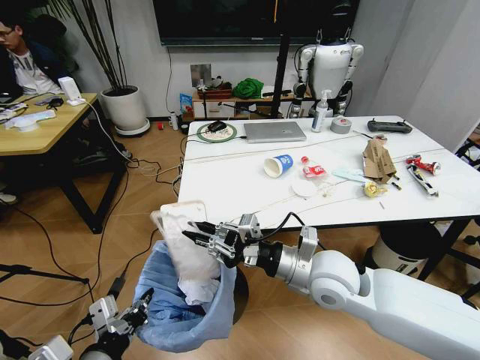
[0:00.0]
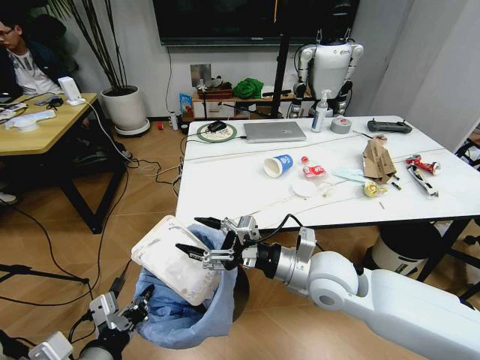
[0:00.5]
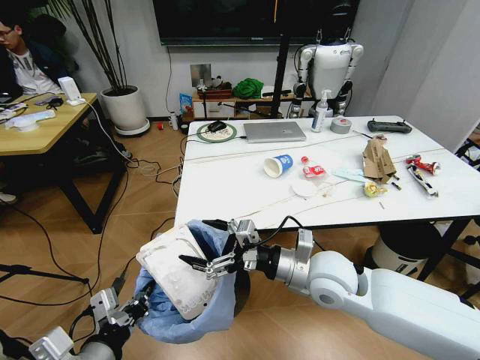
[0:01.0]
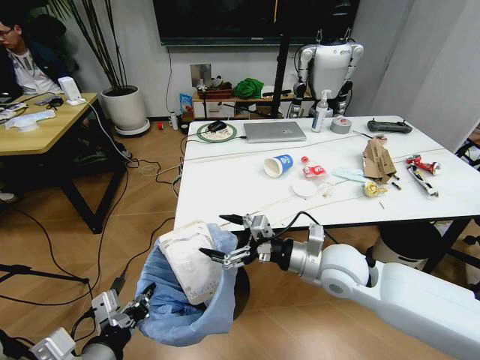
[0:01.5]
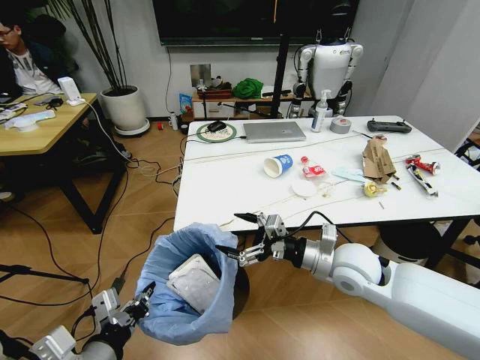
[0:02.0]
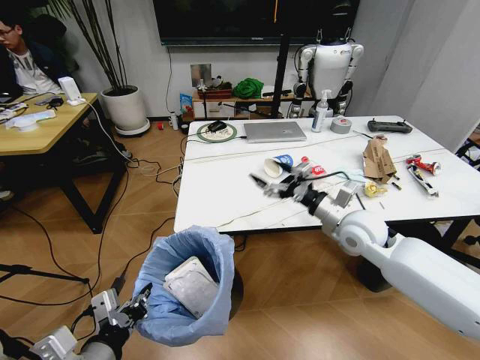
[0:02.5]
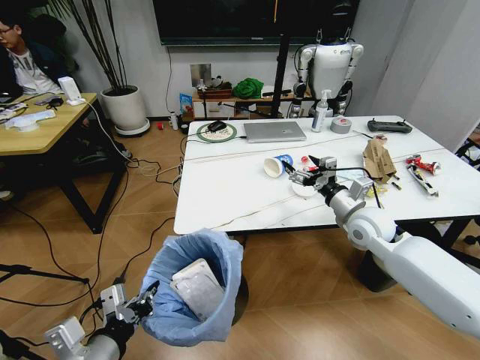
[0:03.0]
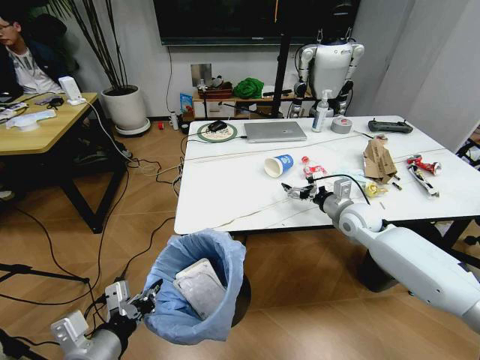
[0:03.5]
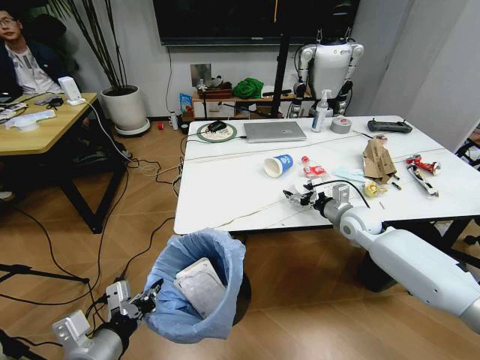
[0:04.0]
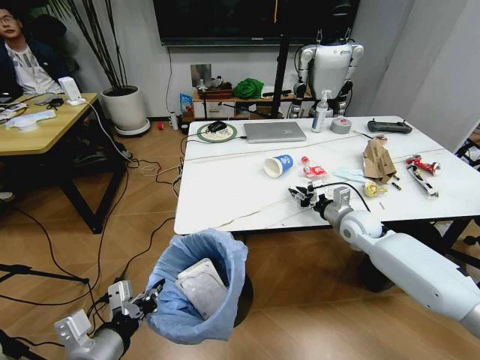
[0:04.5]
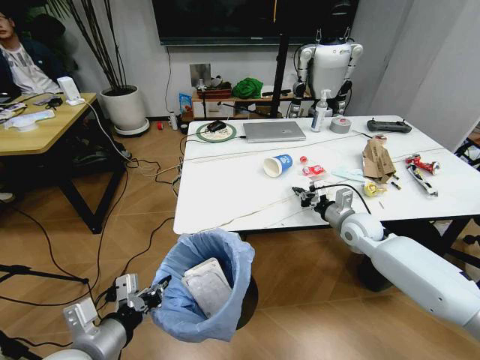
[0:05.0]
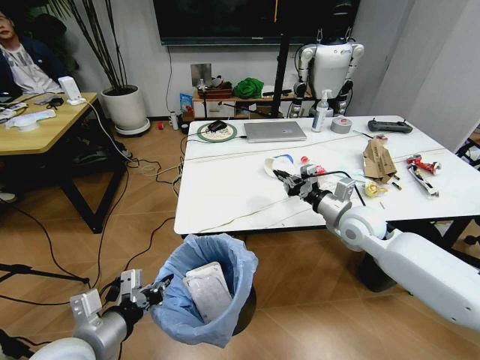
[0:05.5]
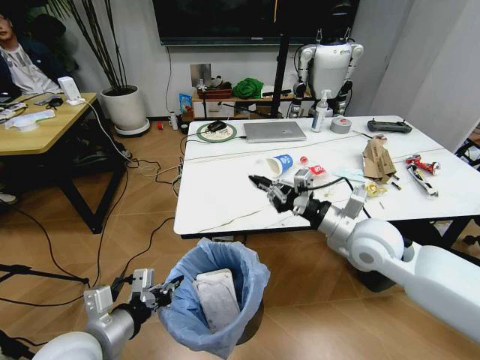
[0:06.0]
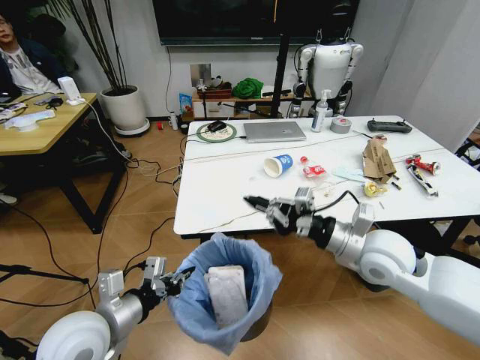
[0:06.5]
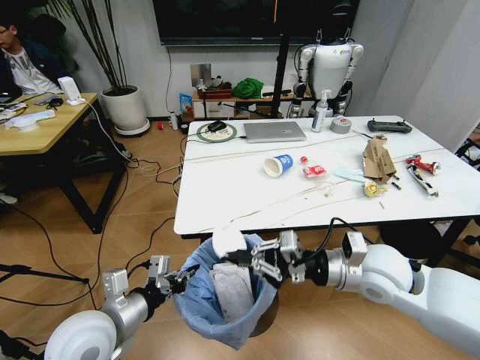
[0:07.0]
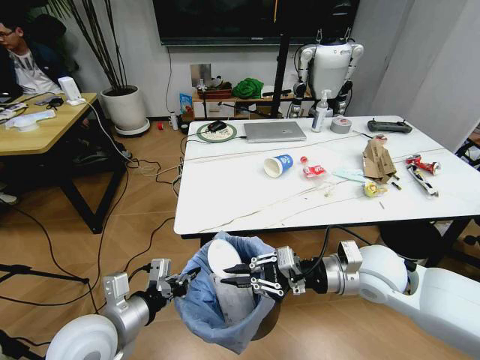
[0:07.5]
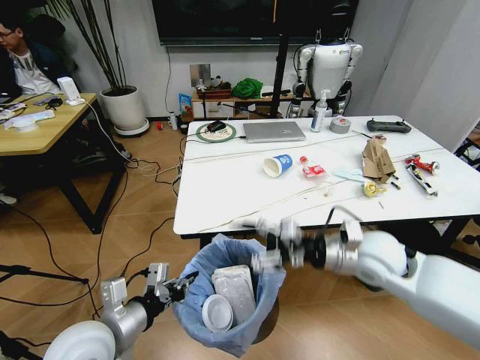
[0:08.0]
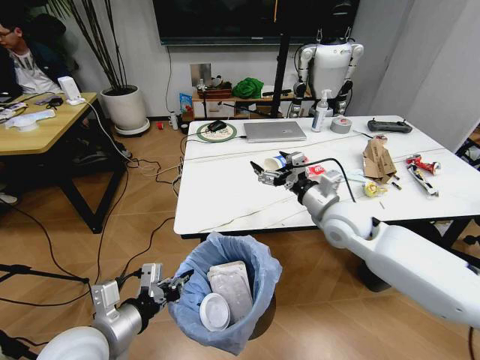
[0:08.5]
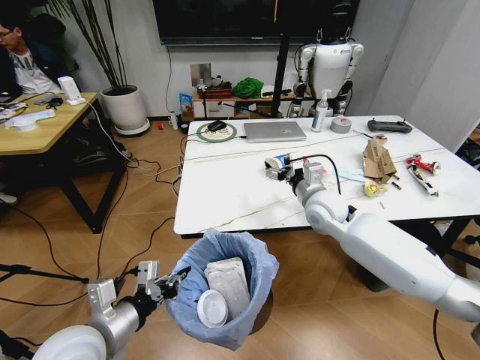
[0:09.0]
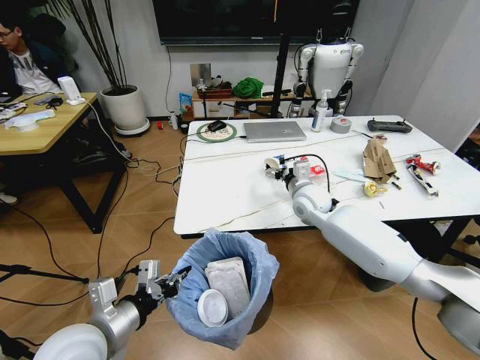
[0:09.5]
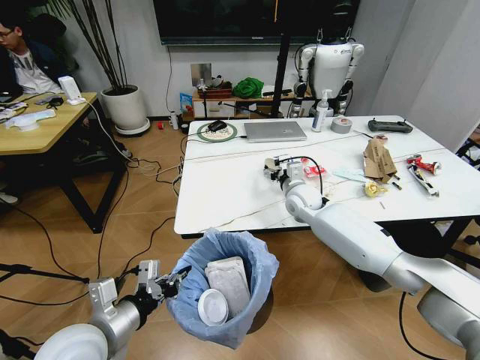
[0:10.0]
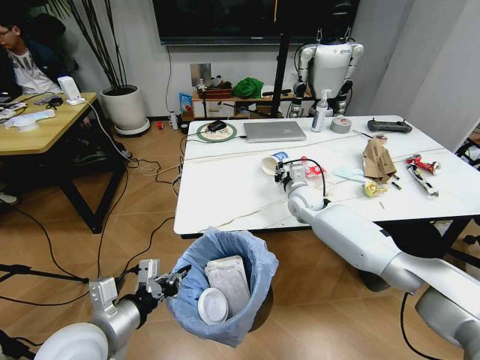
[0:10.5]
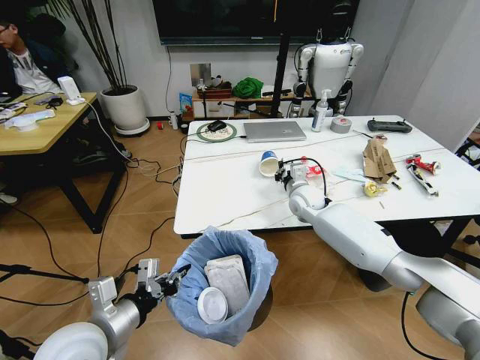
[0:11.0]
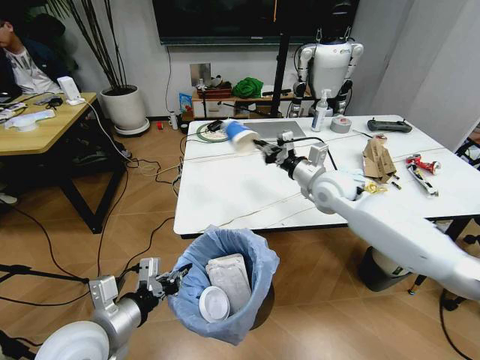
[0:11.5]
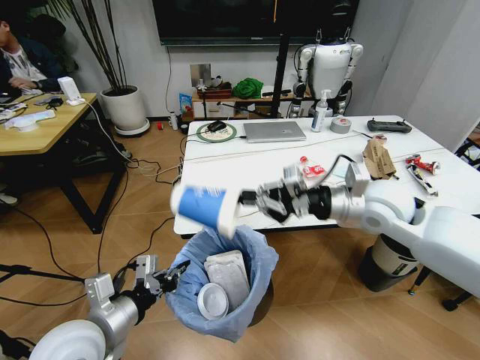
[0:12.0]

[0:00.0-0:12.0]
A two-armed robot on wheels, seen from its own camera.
Task of the whole recording: Pick up the trash bin and place the trash from the table into it.
0:00.0 to 0:02.0: The right gripper shifts roughly 5 cm to the right, and opens.
0:02.0 to 0:04.0: The right gripper goes approximately 15 cm forward and to the right.
0:04.0 to 0:06.0: The right gripper heads backward, upward and to the left, covering approximately 20 cm, and closes up.
0:06.0 to 0:08.0: The right gripper opens.
0:08.0 to 0:10.0: The right gripper shifts approximately 20 cm forward.
0:10.0 to 0:12.0: The right gripper moves backward, upward and to the right, about 25 cm, and closes.

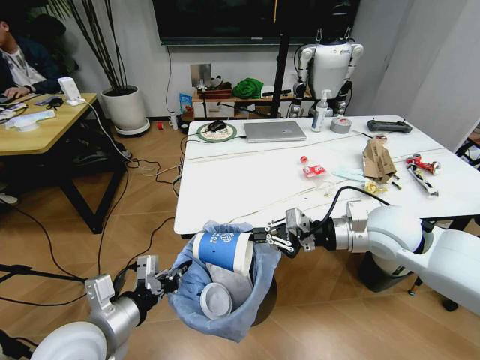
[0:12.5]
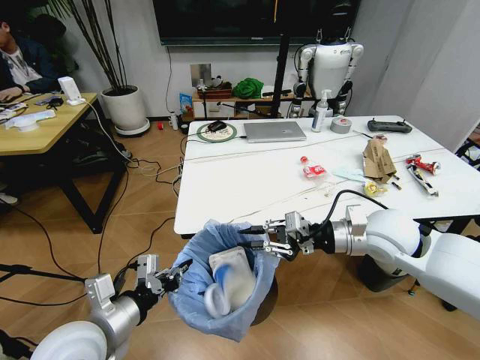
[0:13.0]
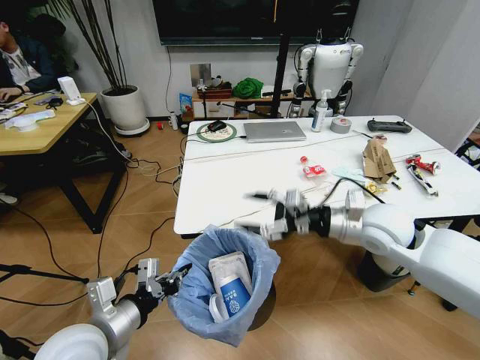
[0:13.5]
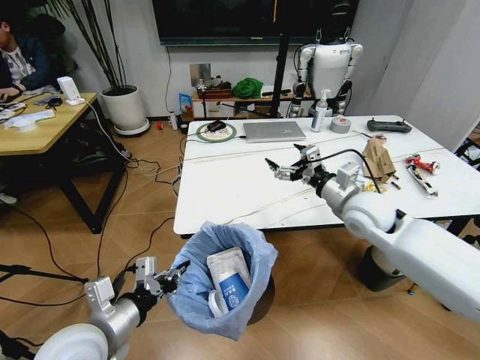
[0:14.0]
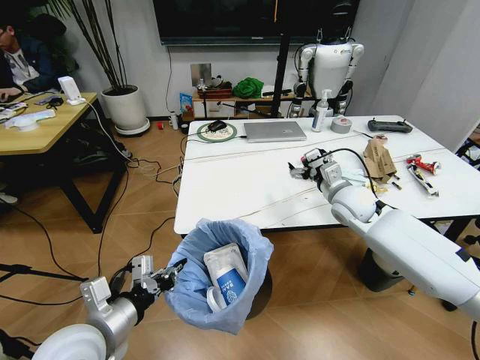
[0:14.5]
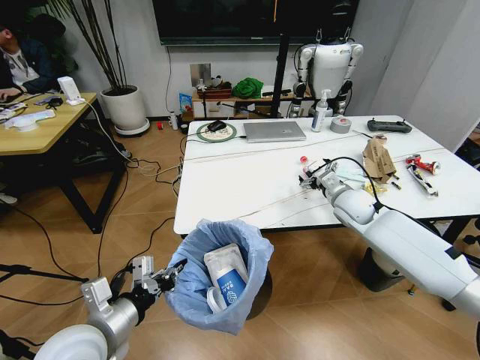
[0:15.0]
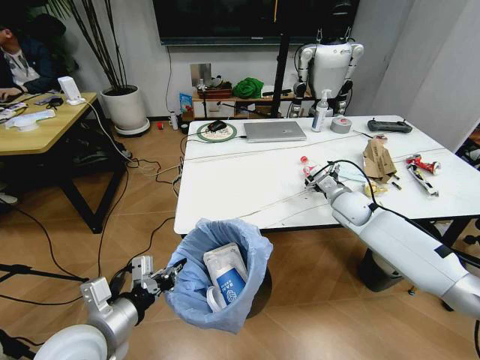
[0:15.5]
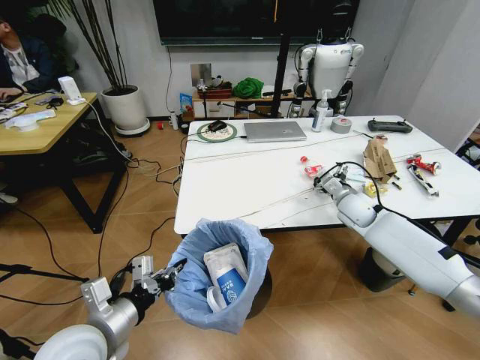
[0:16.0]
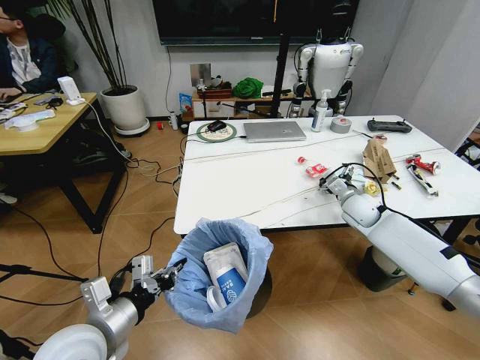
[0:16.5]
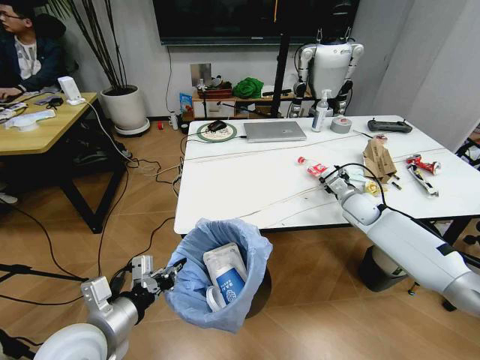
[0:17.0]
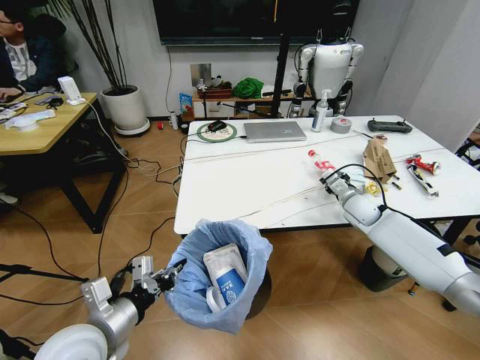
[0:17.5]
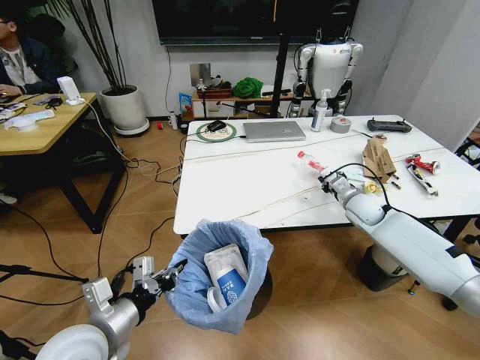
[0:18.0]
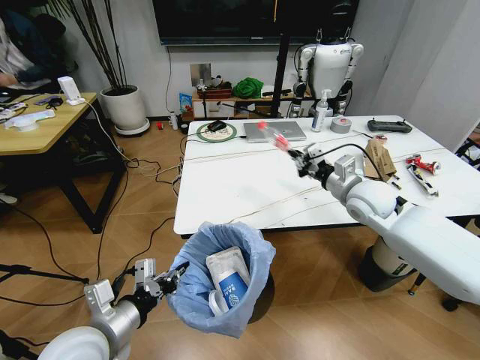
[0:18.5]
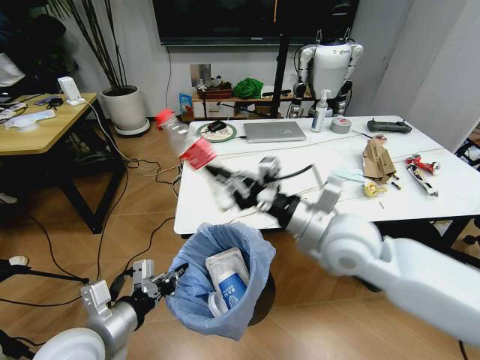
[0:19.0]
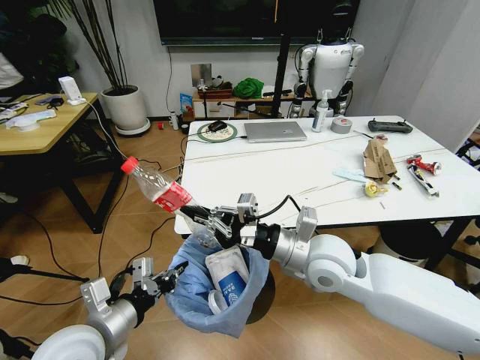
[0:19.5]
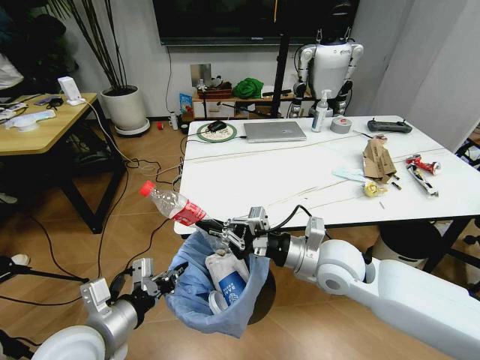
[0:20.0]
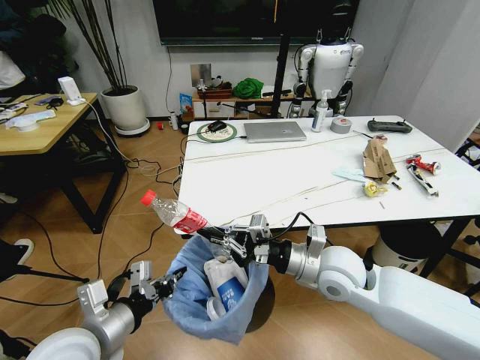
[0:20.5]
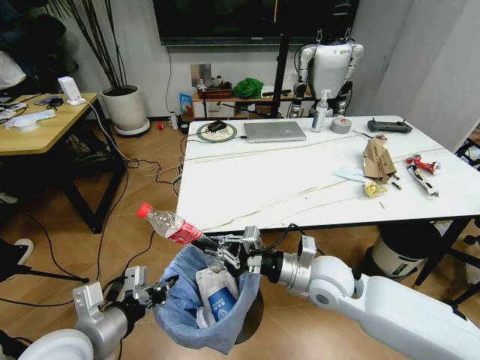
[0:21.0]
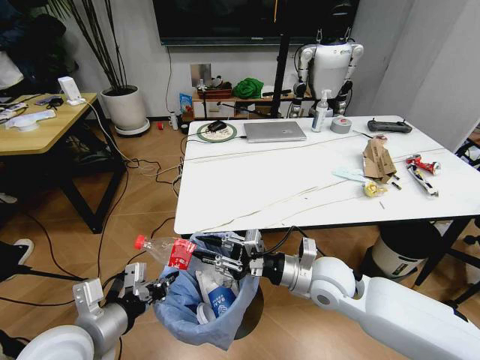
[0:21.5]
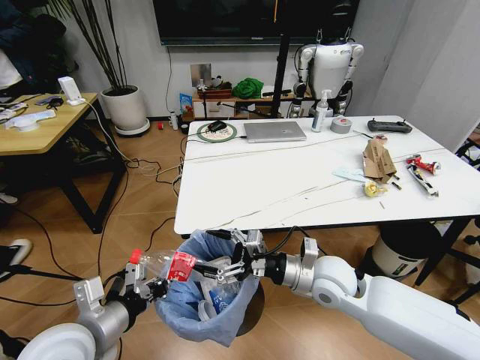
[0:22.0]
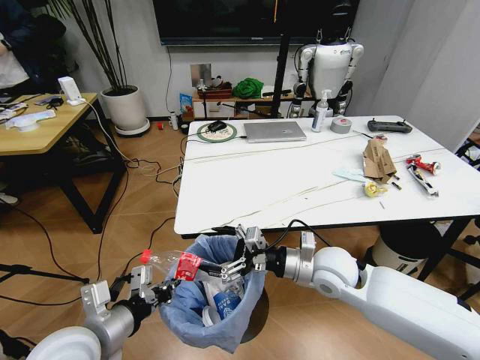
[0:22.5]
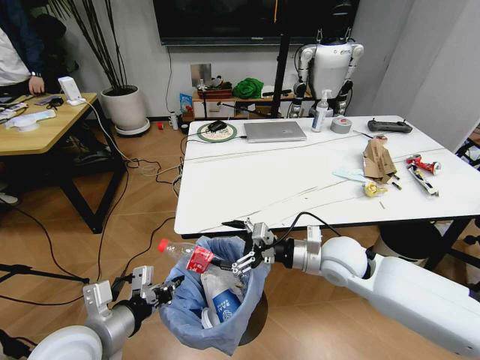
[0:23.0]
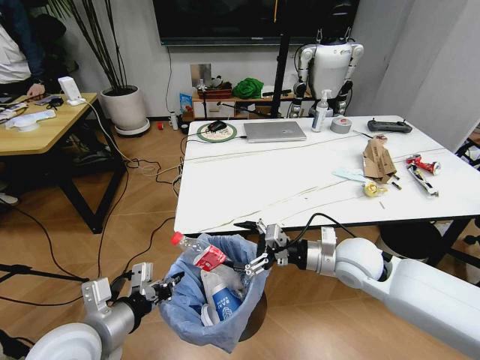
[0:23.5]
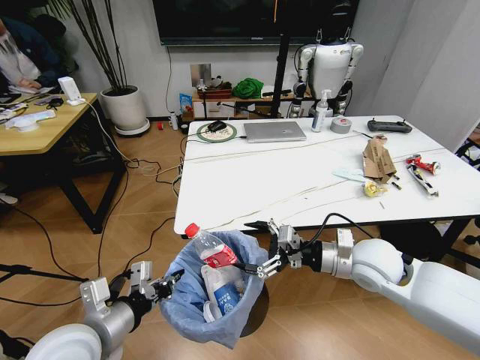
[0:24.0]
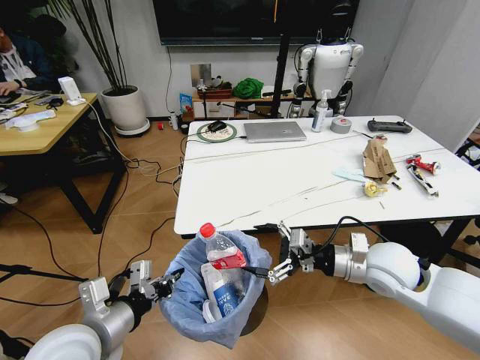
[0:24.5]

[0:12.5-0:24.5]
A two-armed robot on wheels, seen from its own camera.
Task of the whole recording: Pick up the trash bin and place the trash from the table into it.
0:12.5 to 0:14.5: The right gripper travels forward and downward by some 15 cm, and opens up.
0:14.5 to 0:16.5: The right gripper travels downward and to the right by some 10 cm.
0:16.5 to 0:18.5: The right gripper travels upward and backward by roughly 10 cm, and closes its fingers.
0:18.5 to 0:20.5: The right gripper heads backward and to the left, covering approximately 15 cm.
0:20.5 to 0:22.5: The right gripper opens up.
0:22.5 to 0:24.5: The right gripper is displaced to the right by about 10 cm.

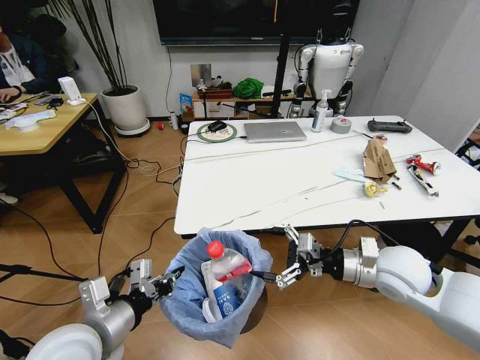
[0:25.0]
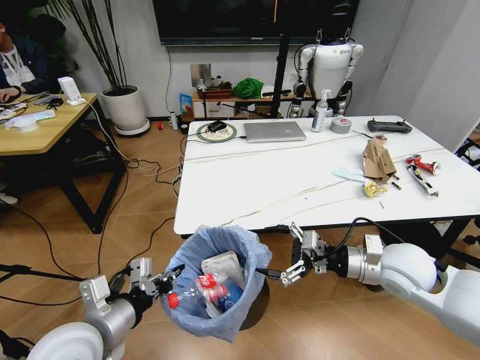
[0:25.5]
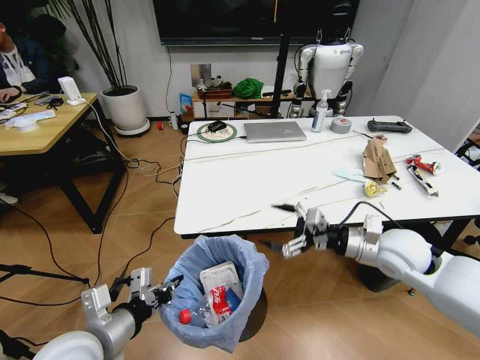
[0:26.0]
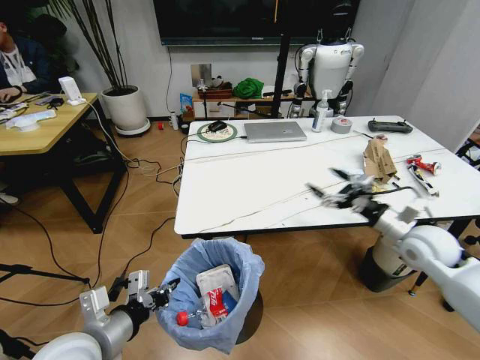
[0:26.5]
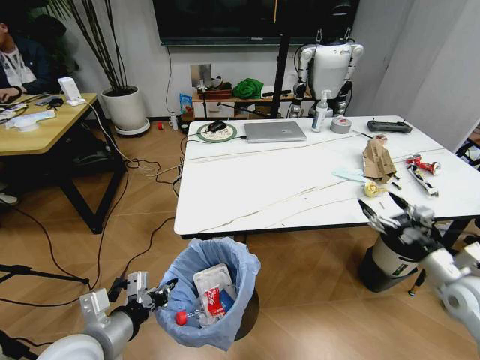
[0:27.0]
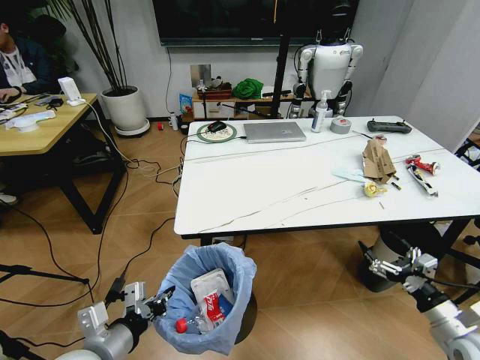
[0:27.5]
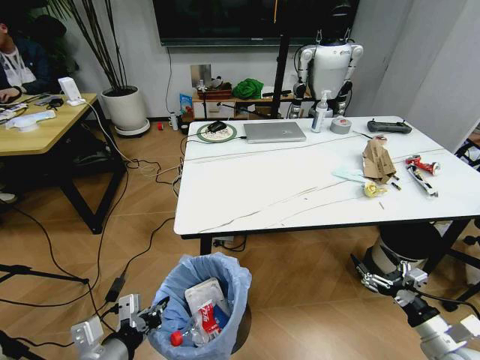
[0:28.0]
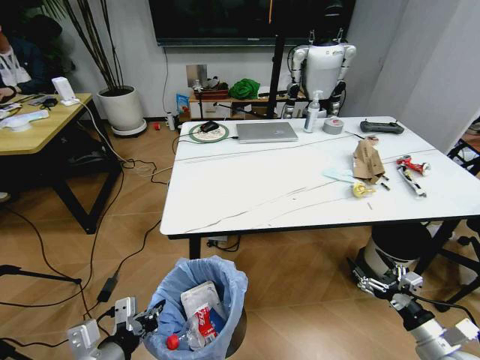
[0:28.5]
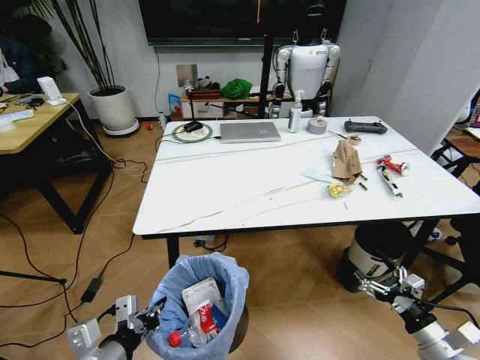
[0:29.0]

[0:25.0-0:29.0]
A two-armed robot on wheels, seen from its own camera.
Task of the whole recording: Pick up the trash bin and place the trash from the table into it.
0:25.0 to 0:27.0: The right gripper goes some 15 cm to the right.
0:27.0 to 0:29.0: The left gripper changes place by roughly 5 cm. Meanwhile the right gripper travels backward and downward by roughly 15 cm.
